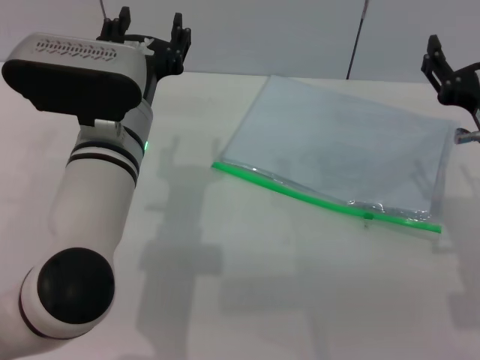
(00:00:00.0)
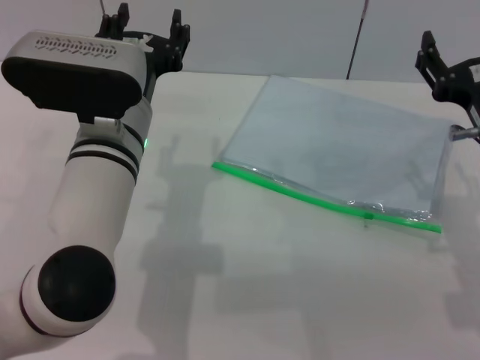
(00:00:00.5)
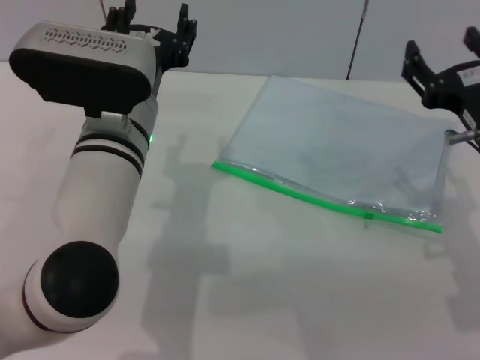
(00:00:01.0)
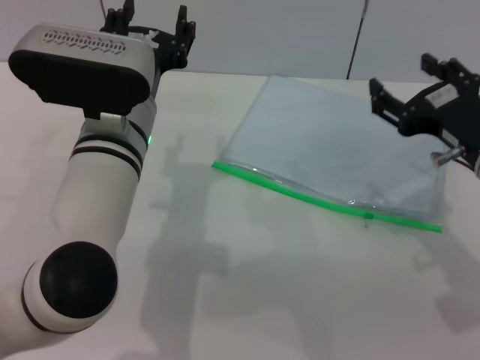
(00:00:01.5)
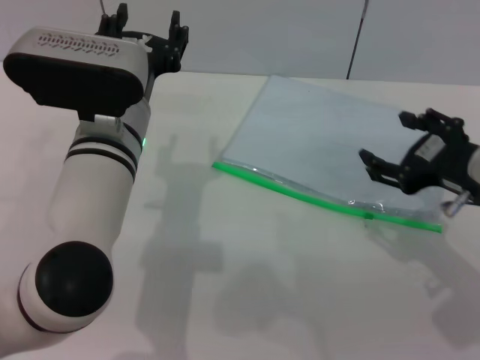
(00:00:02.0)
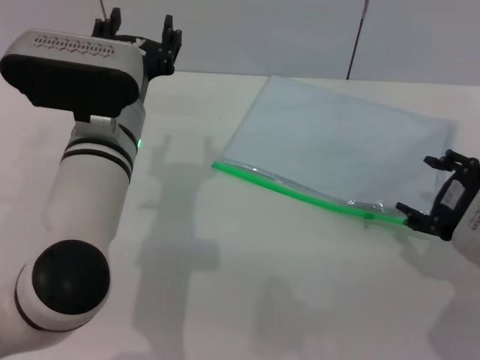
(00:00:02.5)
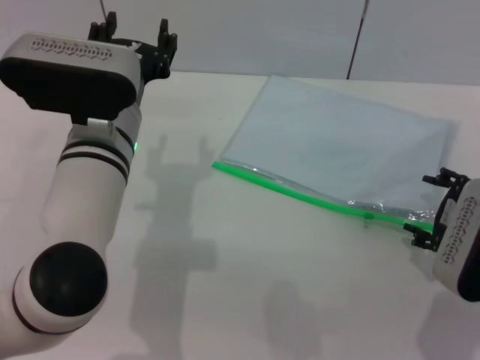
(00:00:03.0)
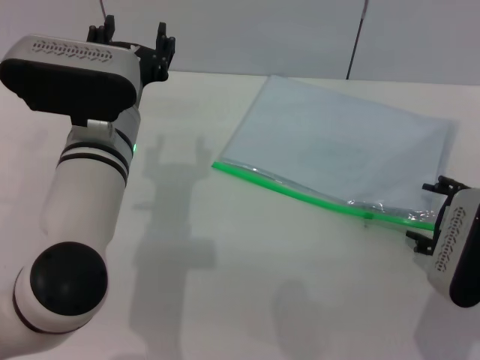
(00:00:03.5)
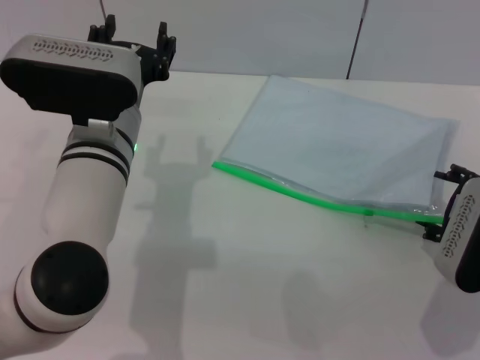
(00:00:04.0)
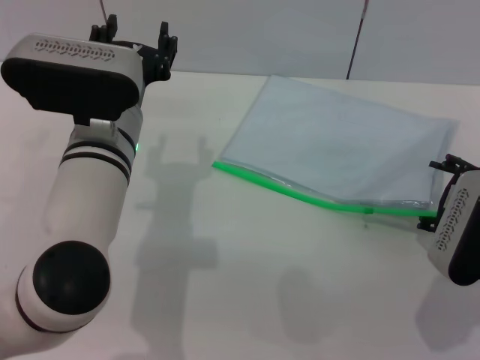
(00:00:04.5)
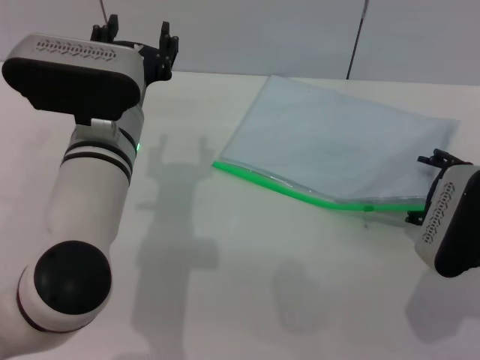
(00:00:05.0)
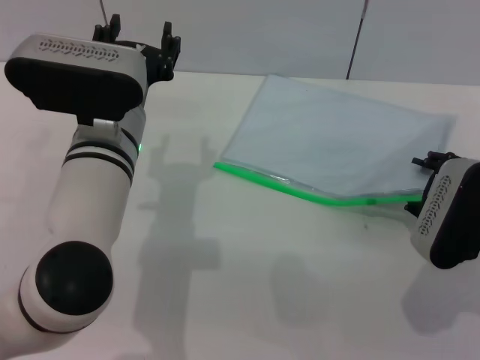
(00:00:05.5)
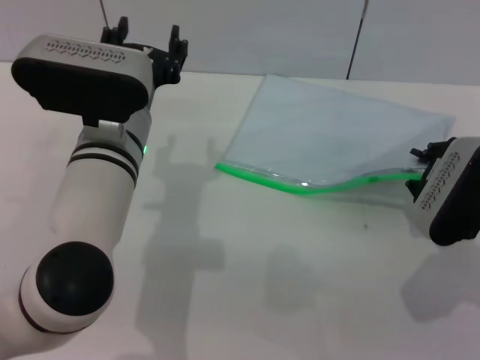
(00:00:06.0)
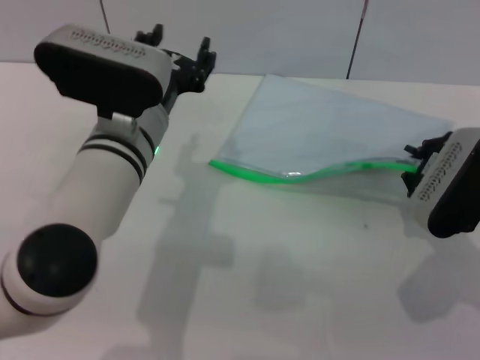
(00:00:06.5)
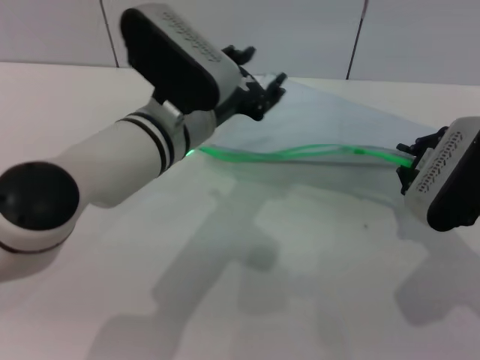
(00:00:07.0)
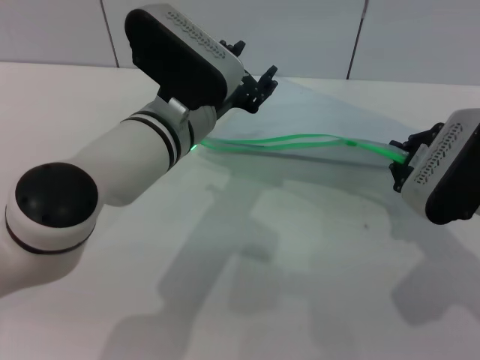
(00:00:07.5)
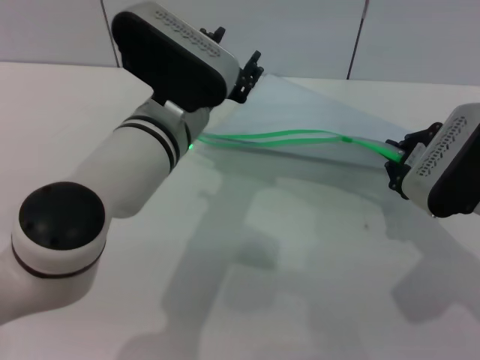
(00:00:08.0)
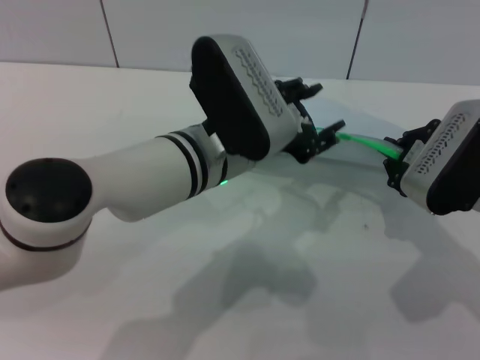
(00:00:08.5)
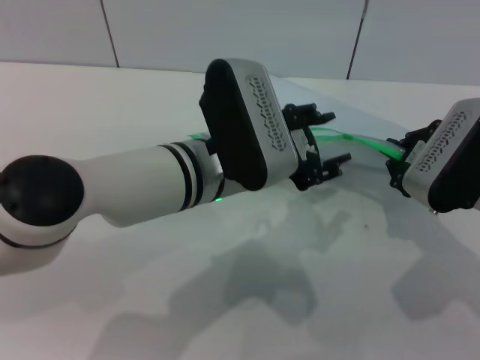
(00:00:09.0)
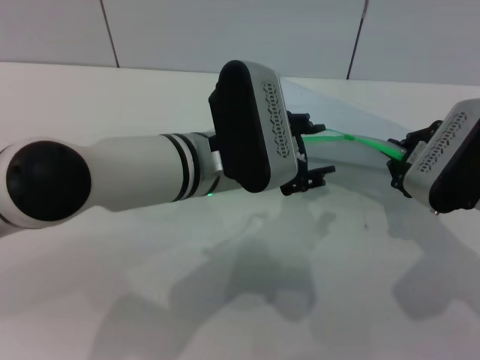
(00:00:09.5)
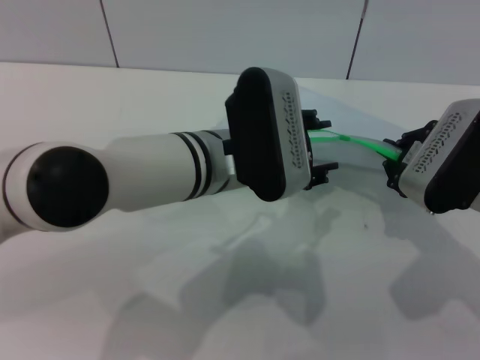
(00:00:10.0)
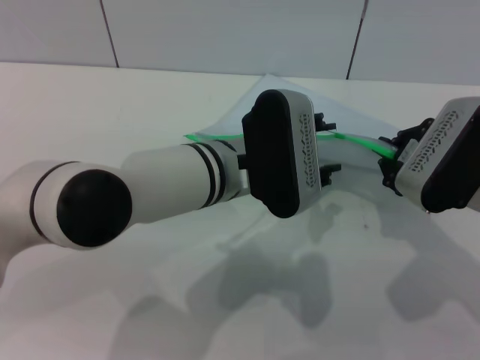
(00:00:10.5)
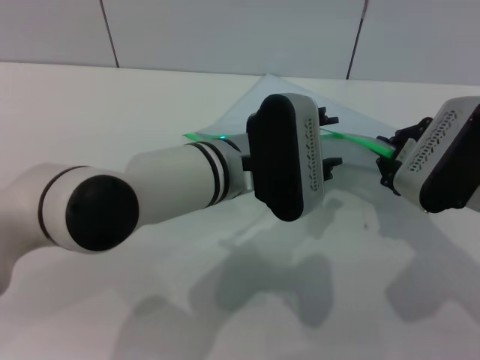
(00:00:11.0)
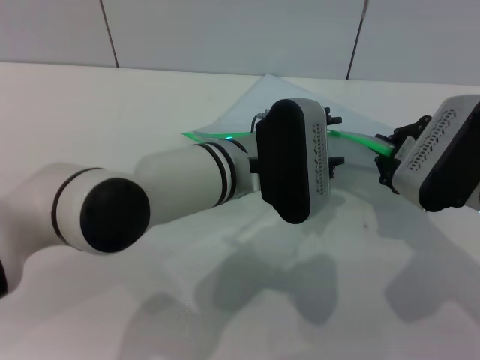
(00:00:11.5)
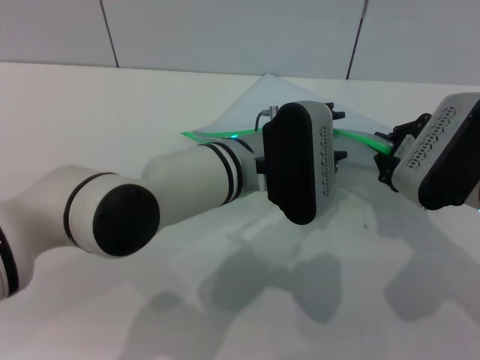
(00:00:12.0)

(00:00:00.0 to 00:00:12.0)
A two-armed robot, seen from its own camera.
Step, 00:00:00.0 - 00:00:07.0: Pick up the transparent plastic bag with the right gripper.
00:00:02.0 - 00:00:04.0: The right gripper is displaced downward by about 5 cm.
00:00:04.0 - 00:00:06.0: The right gripper closes up.

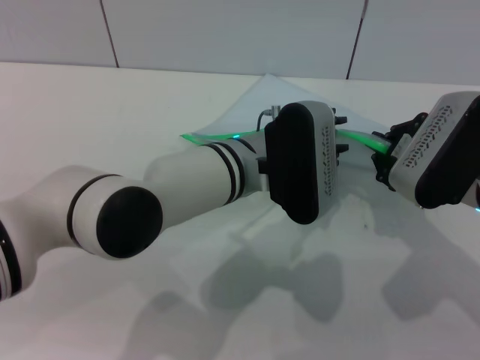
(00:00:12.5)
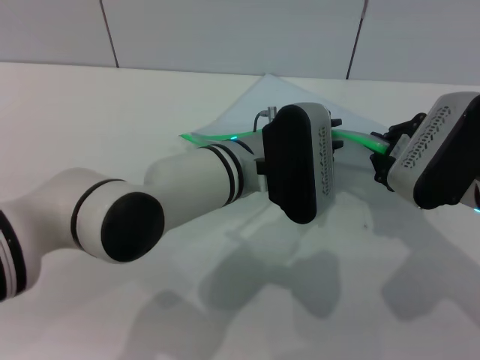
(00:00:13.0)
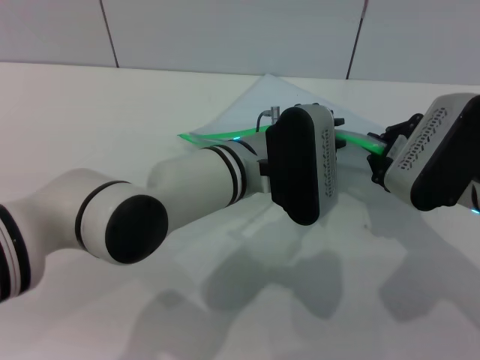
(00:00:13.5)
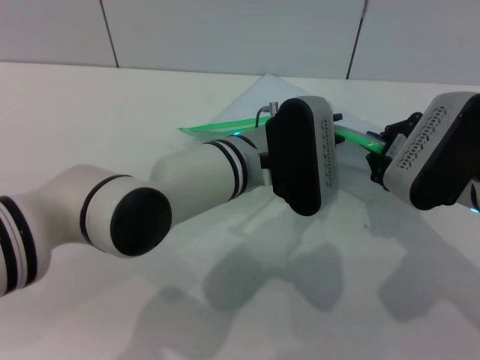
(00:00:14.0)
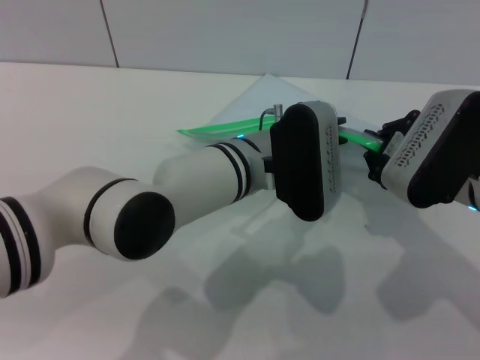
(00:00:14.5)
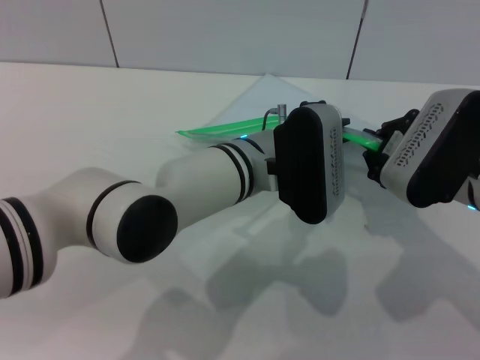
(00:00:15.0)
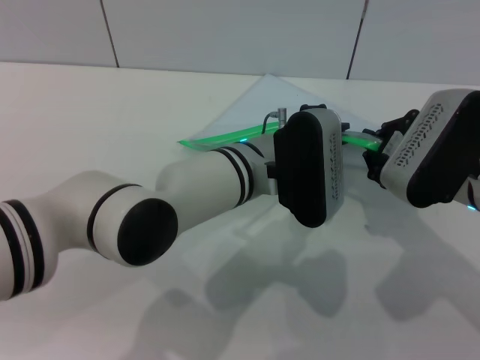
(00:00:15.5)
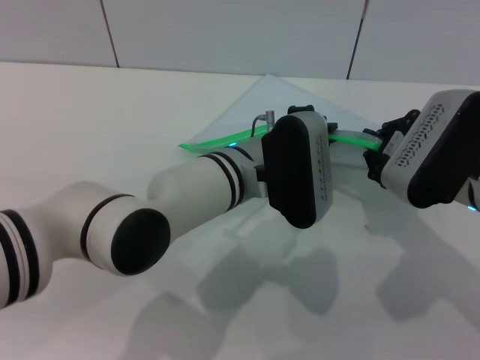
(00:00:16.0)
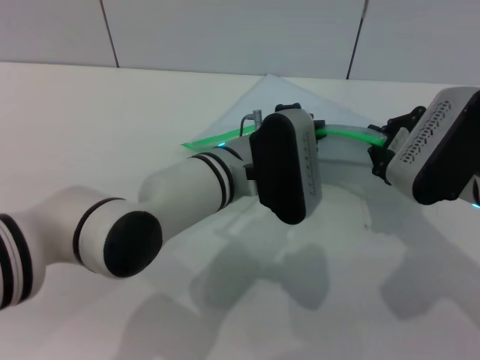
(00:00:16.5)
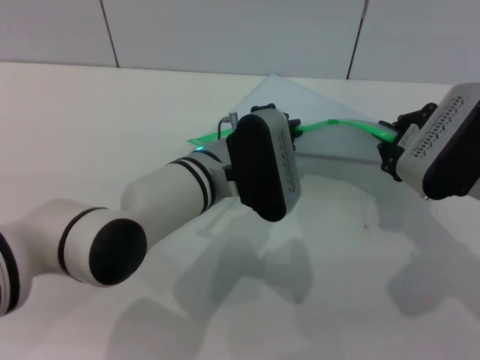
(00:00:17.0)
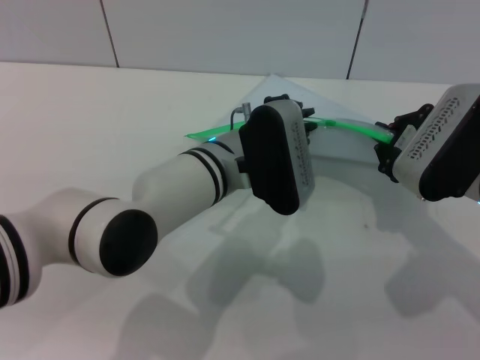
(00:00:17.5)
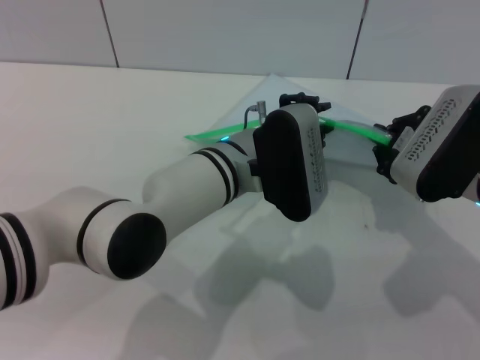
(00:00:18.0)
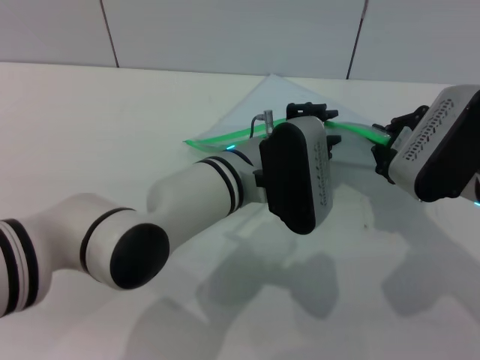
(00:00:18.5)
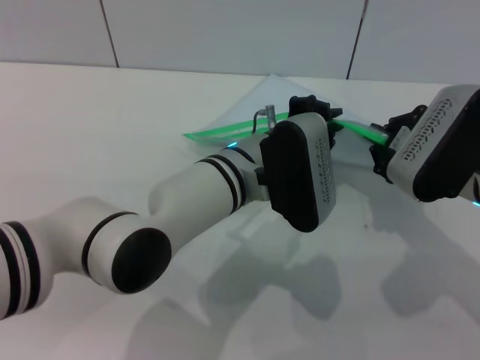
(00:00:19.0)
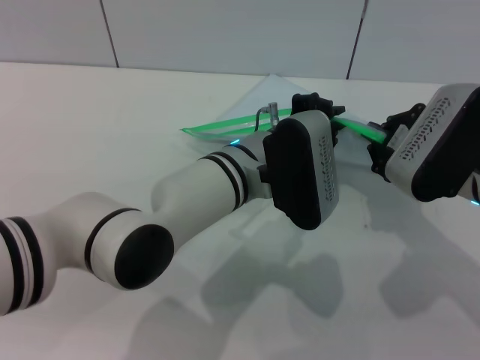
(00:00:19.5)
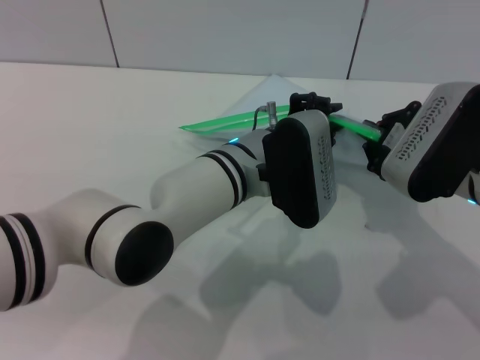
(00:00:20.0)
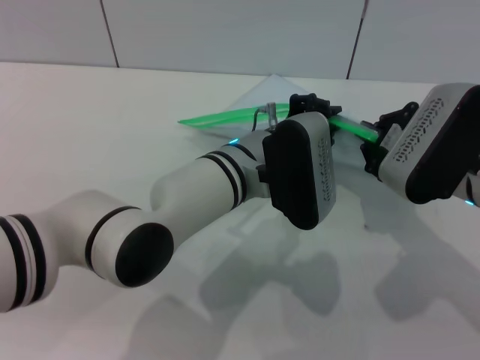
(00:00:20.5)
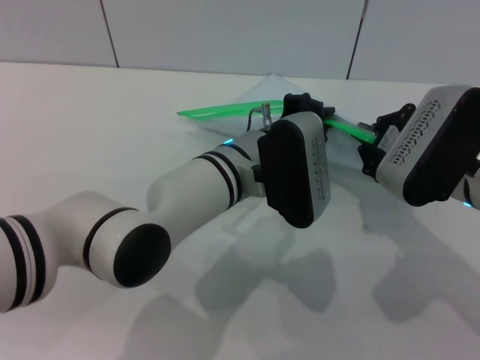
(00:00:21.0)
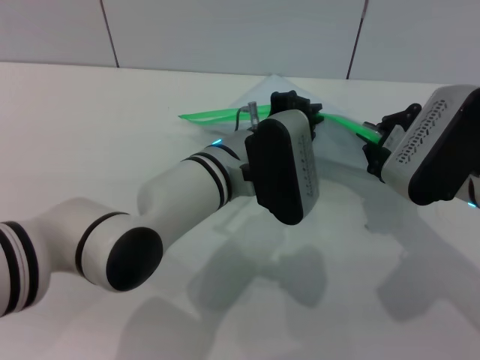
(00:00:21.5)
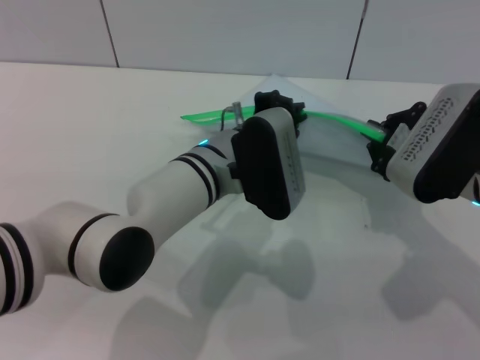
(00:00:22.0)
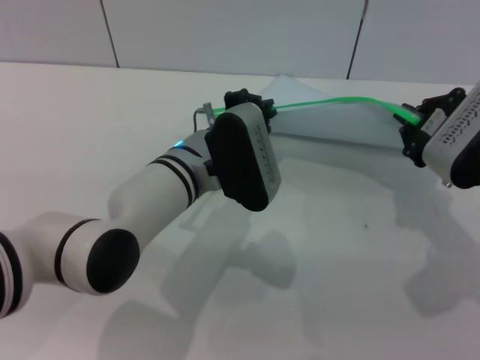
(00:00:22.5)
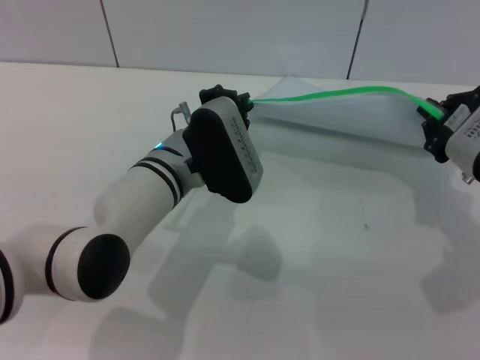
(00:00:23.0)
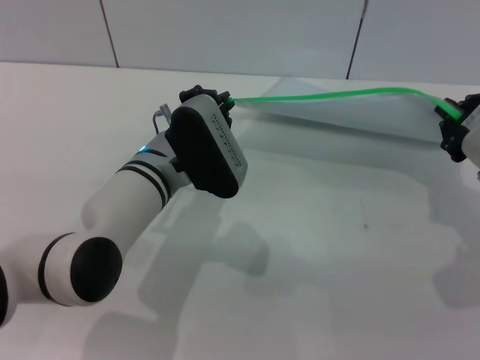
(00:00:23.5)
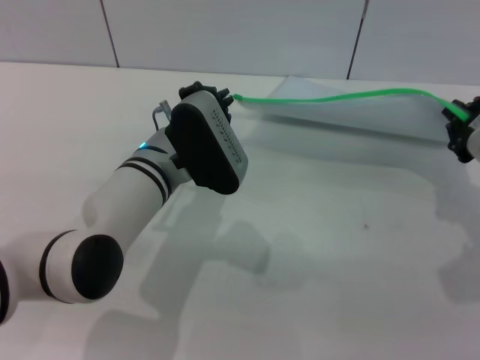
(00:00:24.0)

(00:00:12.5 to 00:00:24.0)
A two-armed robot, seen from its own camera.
00:00:12.5 - 00:00:14.5: Neither gripper changes place.
00:00:14.5 - 00:00:16.5: There are only small adjustments of the grippers.
00:00:16.5 - 00:00:18.5: The left gripper opens its fingers.
00:00:18.5 - 00:00:20.0: Both grippers stay put.
00:00:20.0 - 00:00:22.0: The grippers make only small movements.
00:00:22.0 - 00:00:24.0: The left gripper goes roughly 5 cm to the left; the right gripper shifts approximately 5 cm to the right.

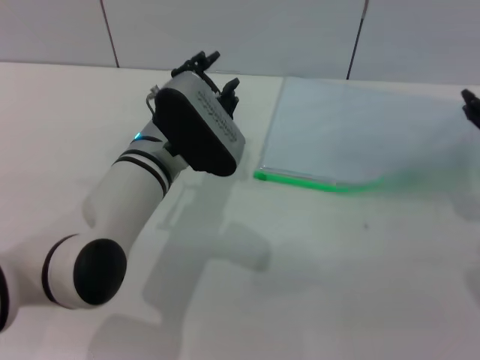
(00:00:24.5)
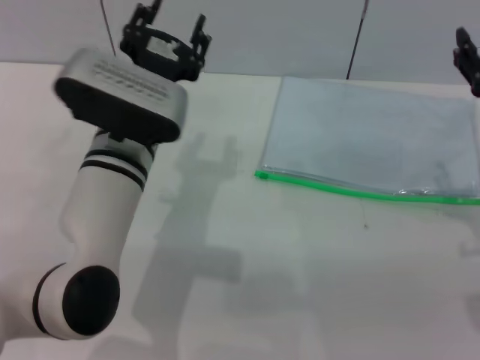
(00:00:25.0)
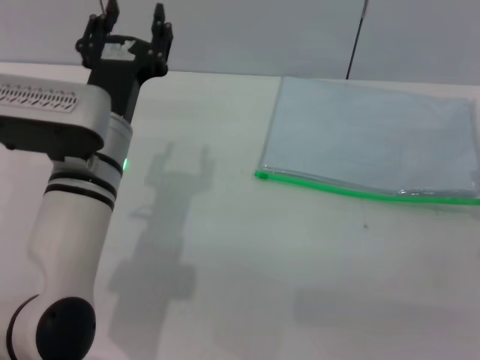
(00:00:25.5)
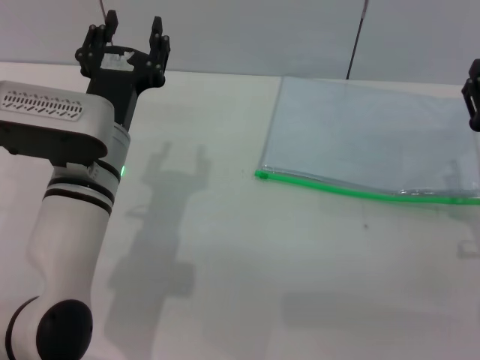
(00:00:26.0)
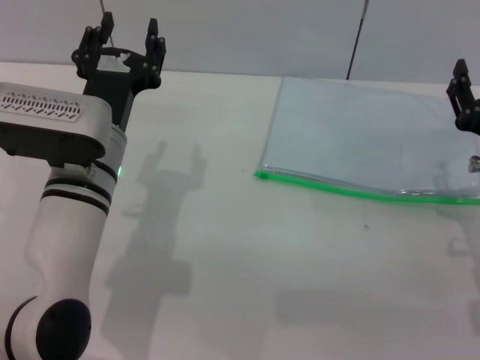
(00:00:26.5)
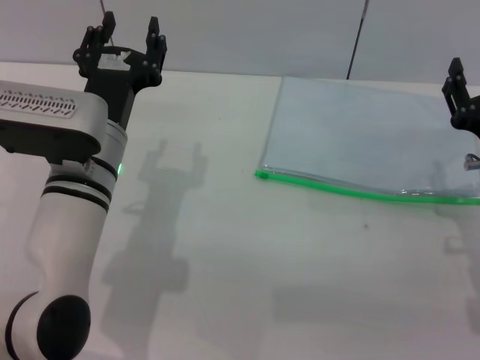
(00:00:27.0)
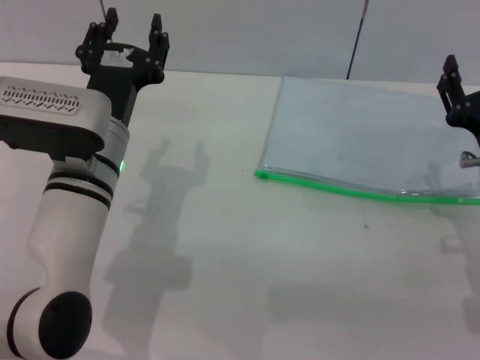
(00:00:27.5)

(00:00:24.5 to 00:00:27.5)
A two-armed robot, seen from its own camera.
Step, 00:00:24.5 - 00:00:25.0: Place the transparent plastic bag.
00:00:24.5 - 00:00:26.0: The right gripper goes about 10 cm downward, and opens, while the left gripper changes place by approximately 5 cm, and opens.
00:00:26.0 - 00:00:27.5: There are only small adjustments of the grippers.
